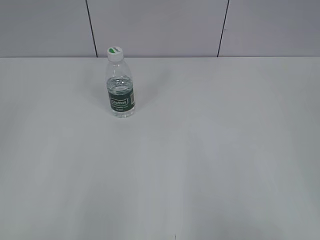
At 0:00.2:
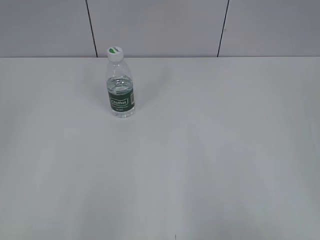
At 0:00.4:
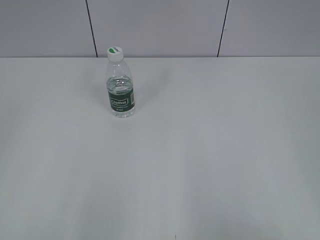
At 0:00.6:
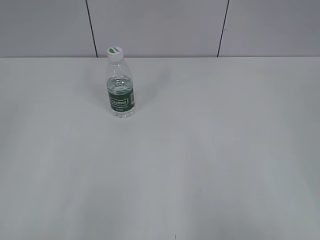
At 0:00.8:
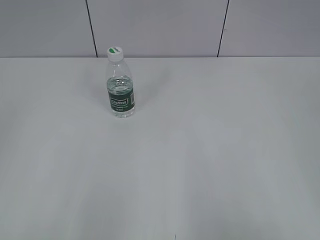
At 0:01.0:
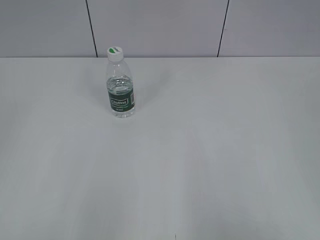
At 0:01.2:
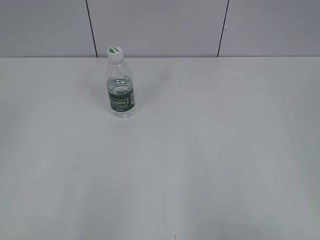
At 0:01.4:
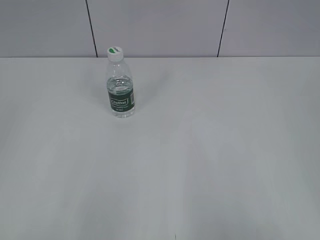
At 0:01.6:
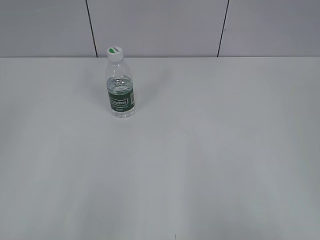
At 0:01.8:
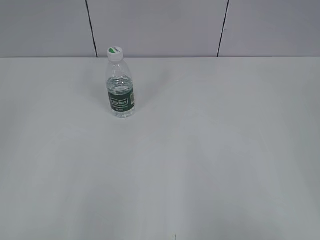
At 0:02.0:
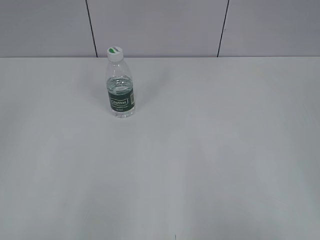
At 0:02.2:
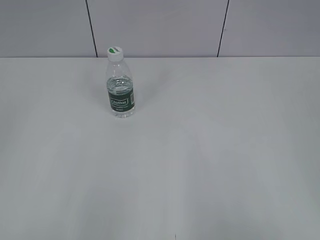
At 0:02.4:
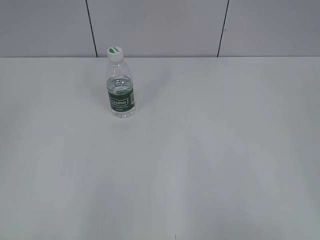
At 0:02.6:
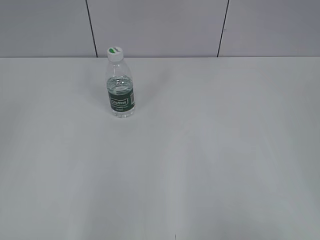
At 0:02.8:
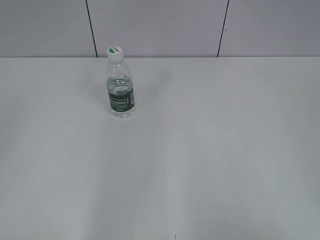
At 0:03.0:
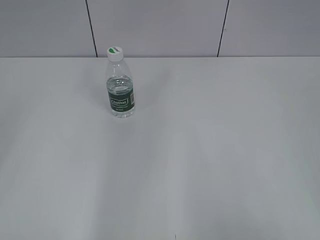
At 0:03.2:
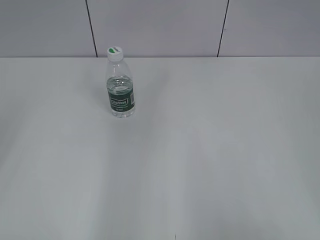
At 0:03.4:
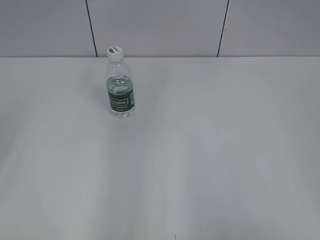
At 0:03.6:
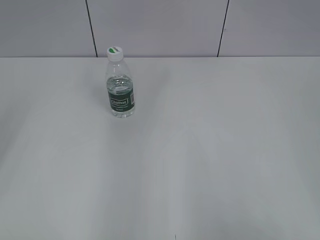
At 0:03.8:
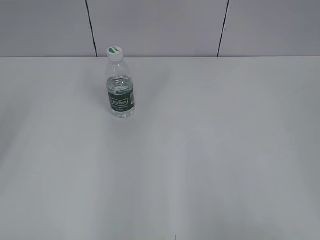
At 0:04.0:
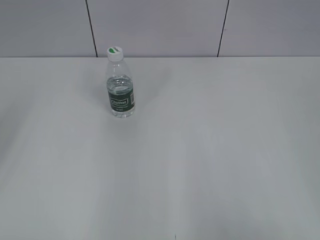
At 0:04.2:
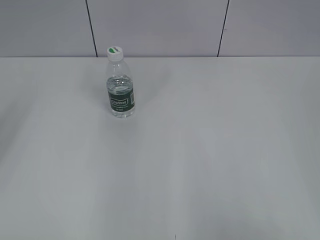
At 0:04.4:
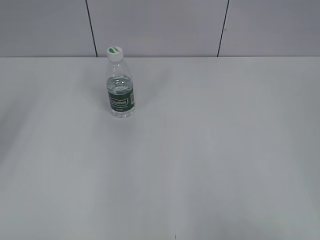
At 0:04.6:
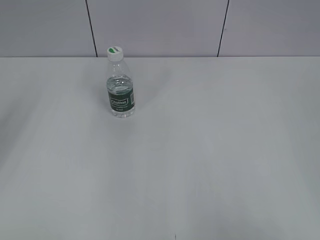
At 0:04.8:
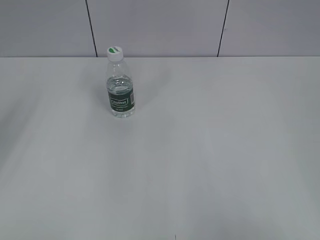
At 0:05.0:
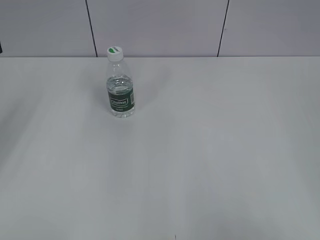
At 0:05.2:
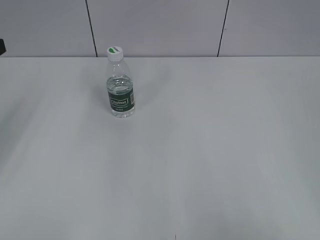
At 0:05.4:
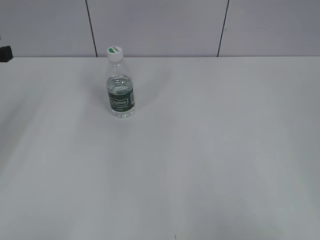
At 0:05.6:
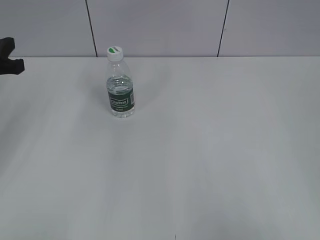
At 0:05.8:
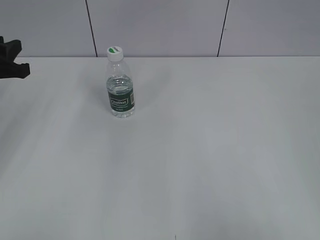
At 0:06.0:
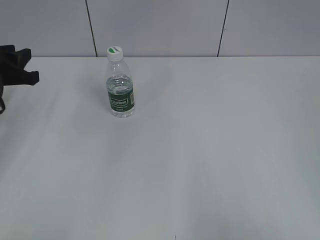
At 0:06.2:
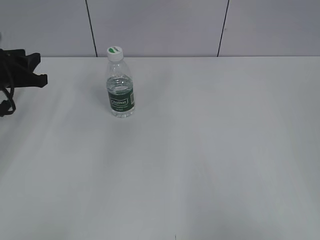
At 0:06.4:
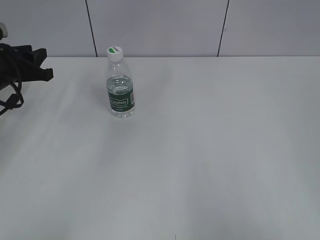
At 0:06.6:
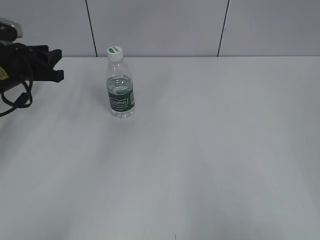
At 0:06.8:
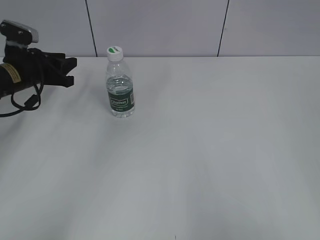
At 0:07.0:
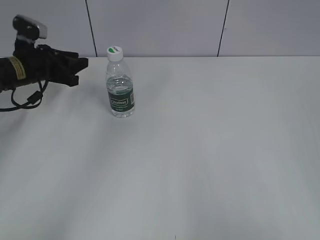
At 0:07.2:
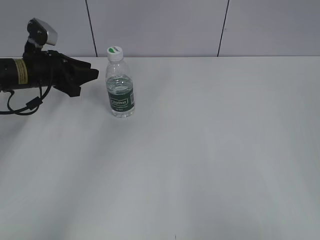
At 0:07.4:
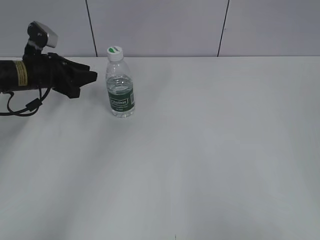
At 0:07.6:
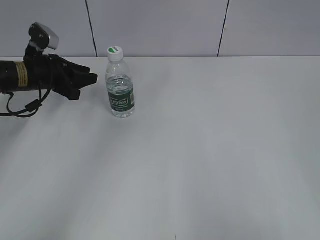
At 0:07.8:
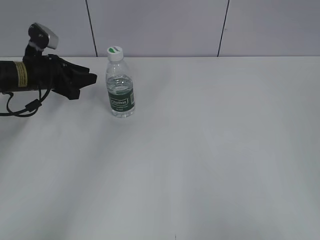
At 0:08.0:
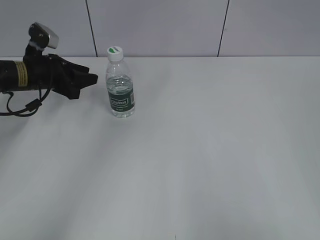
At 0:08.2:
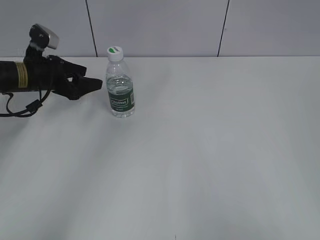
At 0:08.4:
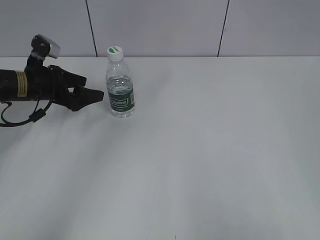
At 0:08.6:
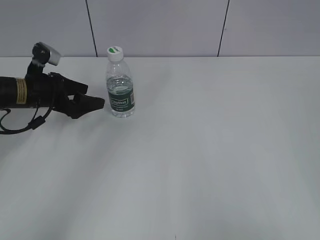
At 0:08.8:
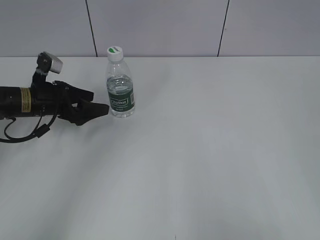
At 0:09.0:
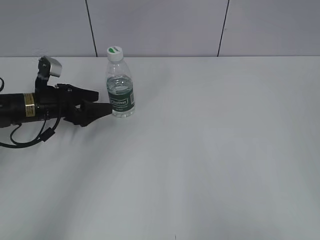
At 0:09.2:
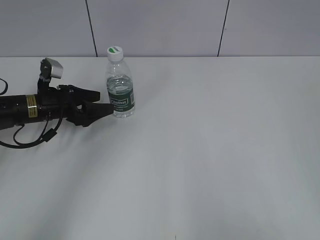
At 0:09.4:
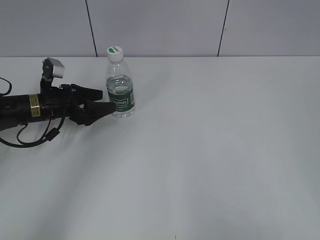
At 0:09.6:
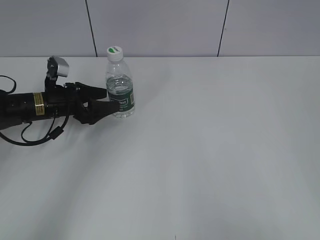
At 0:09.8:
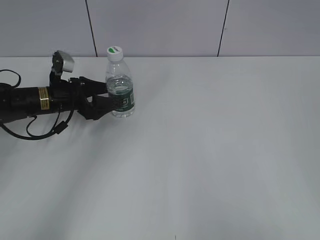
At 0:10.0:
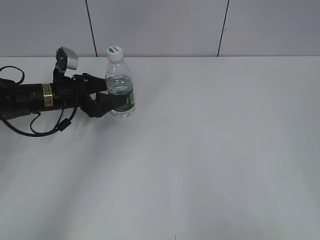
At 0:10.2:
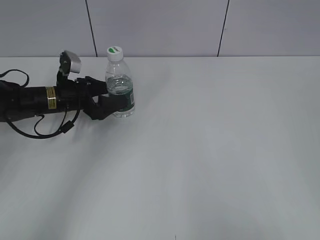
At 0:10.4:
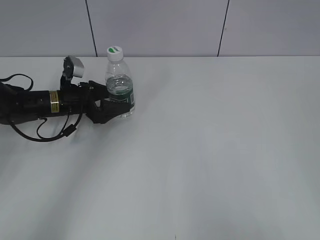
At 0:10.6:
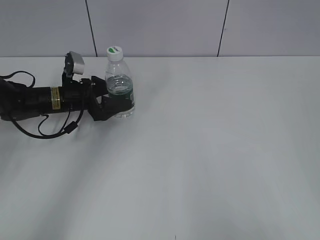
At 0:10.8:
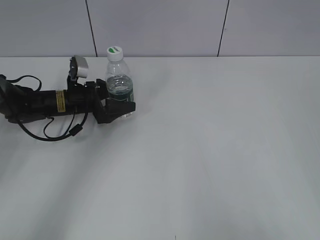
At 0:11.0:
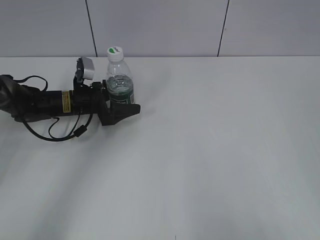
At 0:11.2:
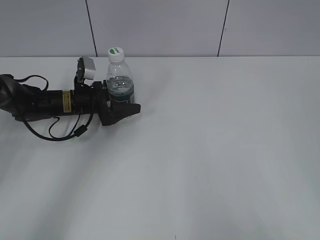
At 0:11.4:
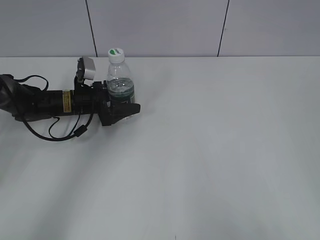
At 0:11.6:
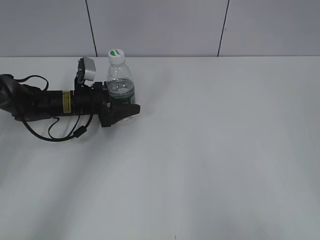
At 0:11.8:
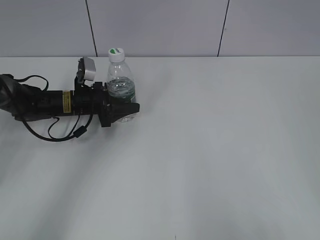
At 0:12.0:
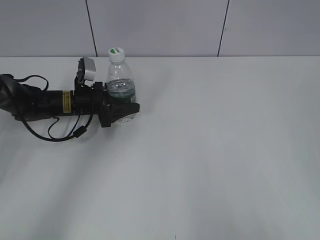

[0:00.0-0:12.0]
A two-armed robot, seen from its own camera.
0:04.4 to 0:06.0: The left gripper travels downward and forward by roughly 15 cm.
0:06.0 to 0:07.6: The left gripper moves forward and downward, roughly 10 cm.
0:07.6 to 0:09.0: The left gripper is displaced downward by about 5 cm, and opens up.
0:09.0 to 0:10.4: The left gripper moves some 5 cm.
0:10.4 to 0:12.0: The left gripper closes its fingers.

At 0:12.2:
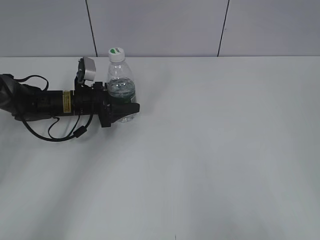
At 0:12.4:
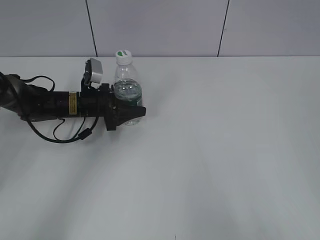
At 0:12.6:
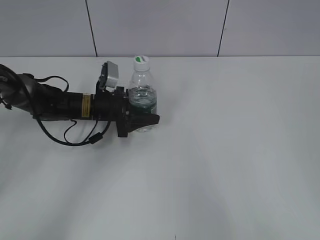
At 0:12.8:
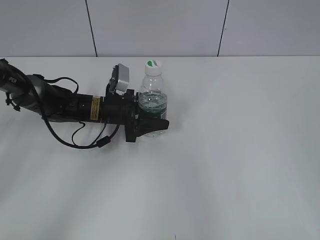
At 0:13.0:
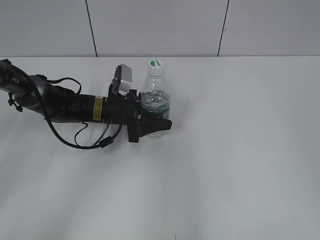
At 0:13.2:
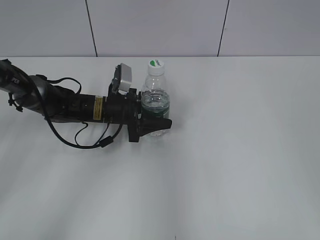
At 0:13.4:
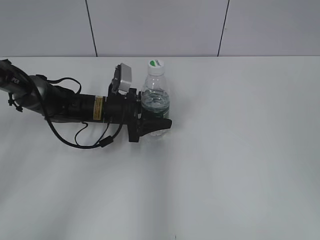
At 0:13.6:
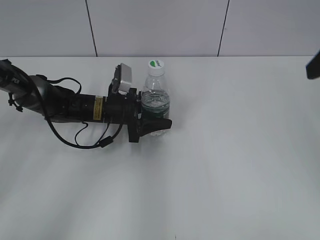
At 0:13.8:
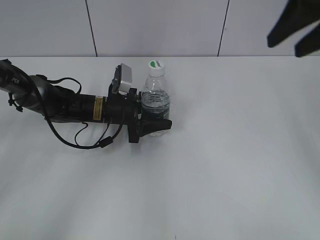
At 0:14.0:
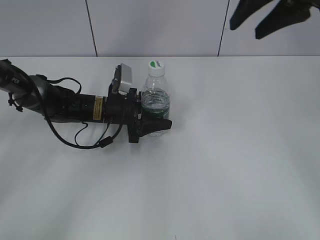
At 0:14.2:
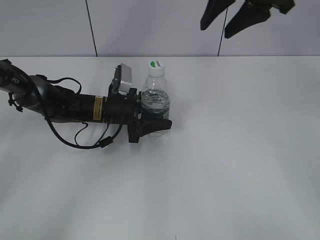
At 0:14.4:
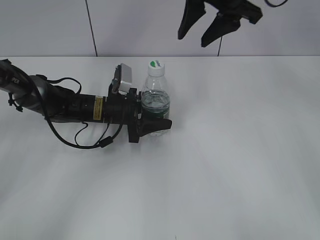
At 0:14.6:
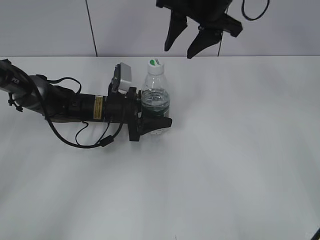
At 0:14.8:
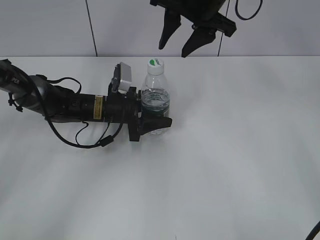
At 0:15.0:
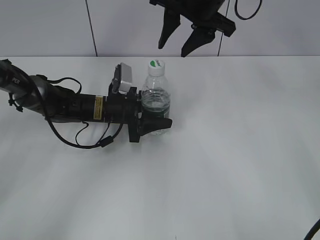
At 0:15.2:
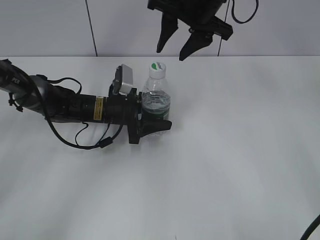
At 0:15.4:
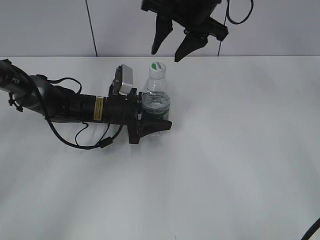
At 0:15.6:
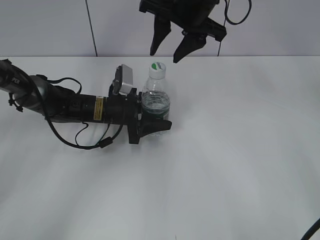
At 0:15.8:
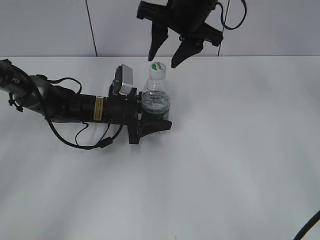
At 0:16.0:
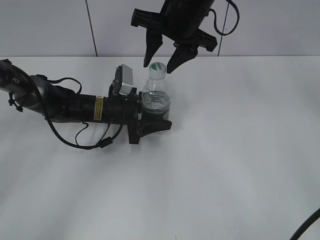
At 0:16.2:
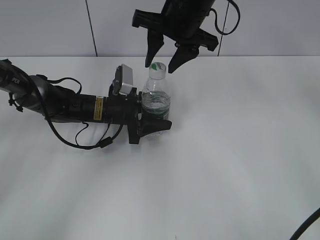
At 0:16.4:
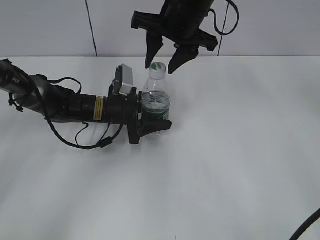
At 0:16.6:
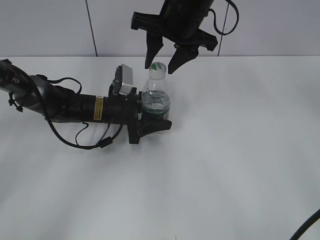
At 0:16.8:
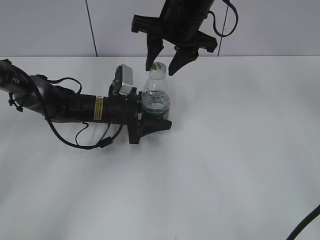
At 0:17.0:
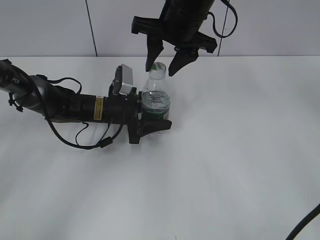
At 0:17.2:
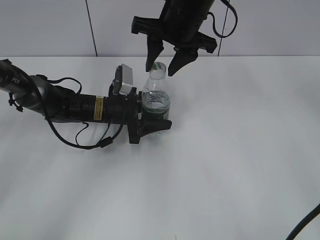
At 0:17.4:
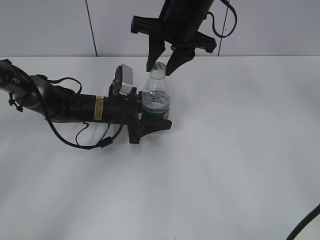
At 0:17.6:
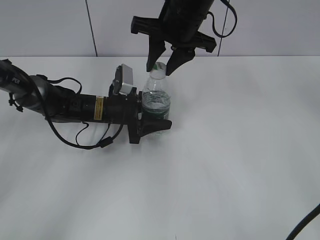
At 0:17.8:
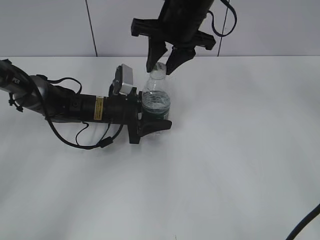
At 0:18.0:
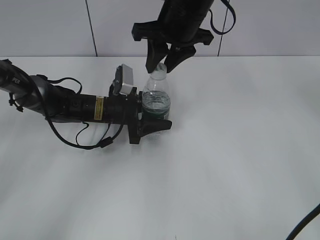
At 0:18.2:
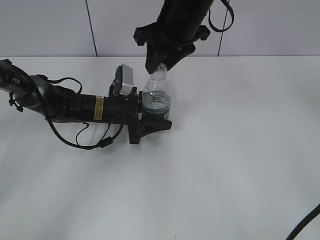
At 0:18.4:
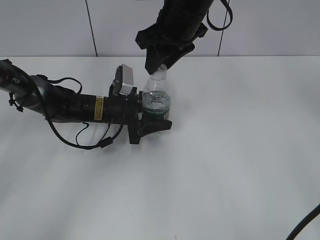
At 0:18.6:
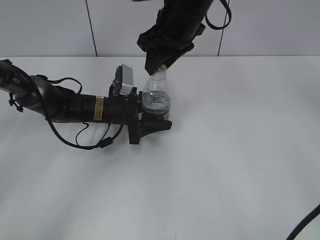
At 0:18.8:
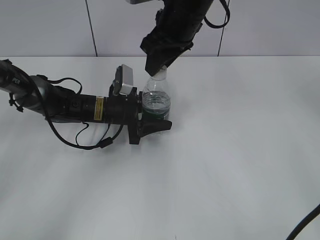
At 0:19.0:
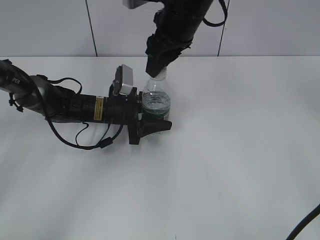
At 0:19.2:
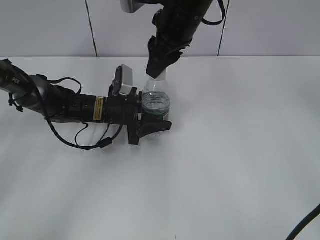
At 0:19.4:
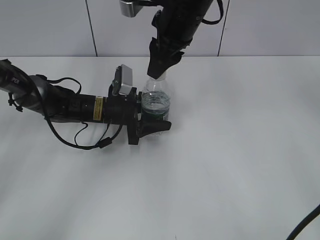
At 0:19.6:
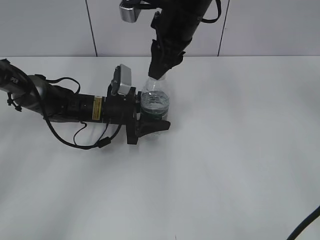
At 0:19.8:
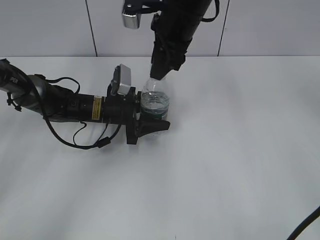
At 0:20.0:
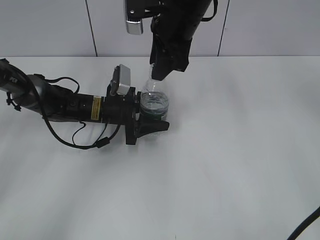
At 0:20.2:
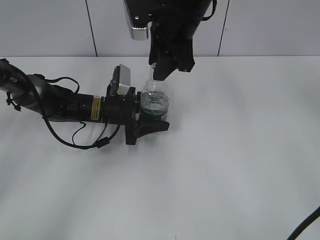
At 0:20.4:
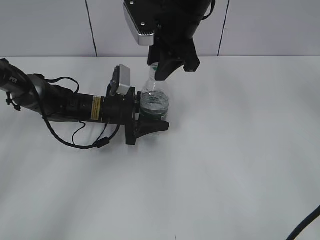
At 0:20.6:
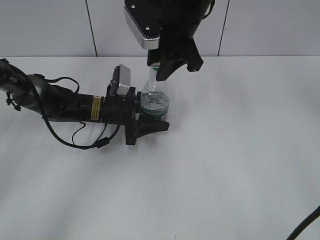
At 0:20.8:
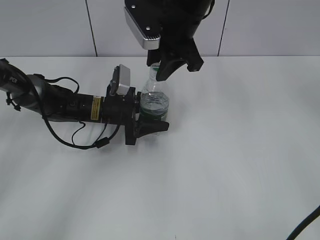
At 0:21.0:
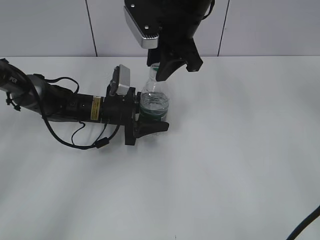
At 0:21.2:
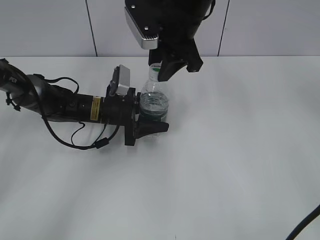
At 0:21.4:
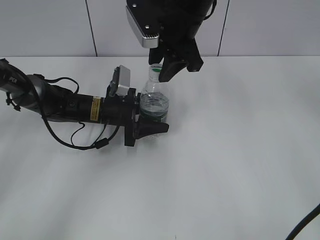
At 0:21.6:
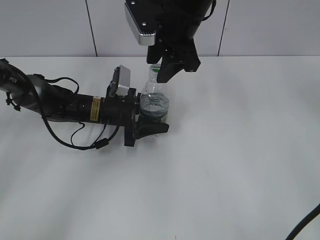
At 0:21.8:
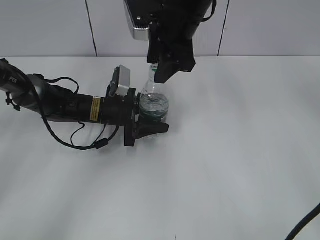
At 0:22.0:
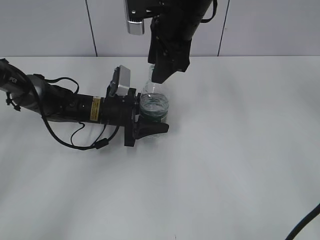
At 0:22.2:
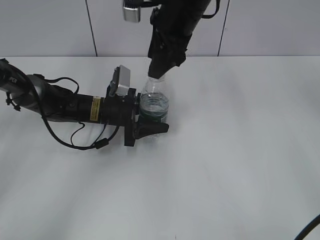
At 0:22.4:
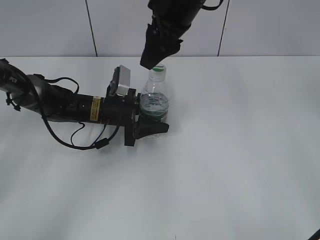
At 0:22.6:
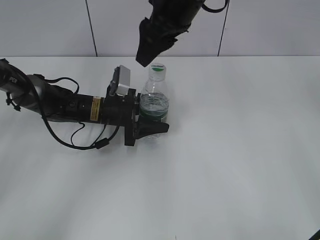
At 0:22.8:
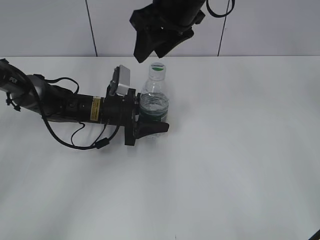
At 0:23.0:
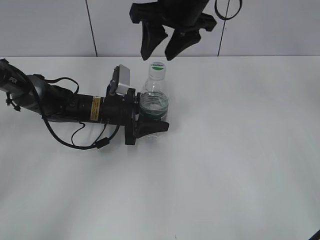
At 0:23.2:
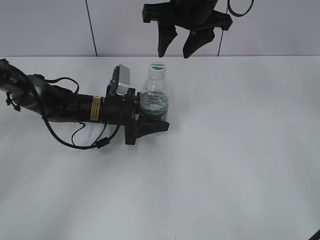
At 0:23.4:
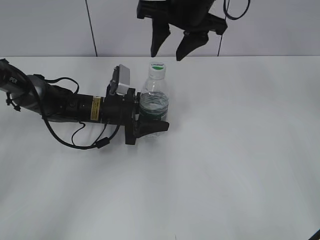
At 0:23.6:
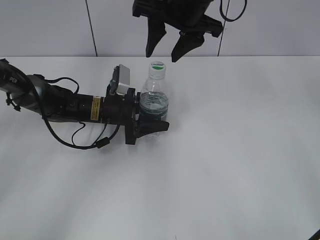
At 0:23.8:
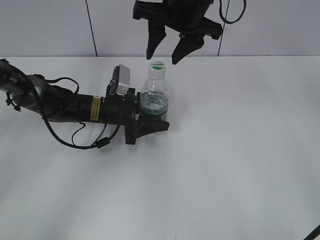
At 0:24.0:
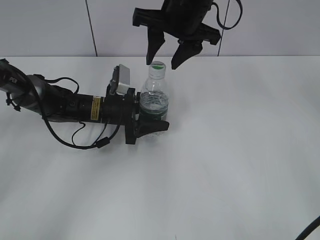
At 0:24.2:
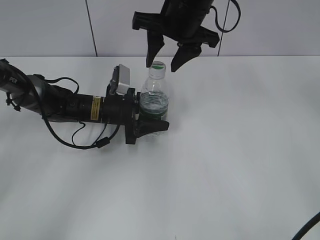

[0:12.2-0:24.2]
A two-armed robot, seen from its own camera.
0:12.2 to 0:13.8: The left gripper heads to the right, covering some 5 cm, while the right gripper travels forward by roughly 30 cm.
0:13.8 to 0:15.2: The right gripper is displaced to the left, forward and downward by some 20 cm.
0:15.2 to 0:16.6: The grippers make only small movements.
0:16.6 to 0:18.2: The right gripper closes its fingers.
0:21.2 to 0:22.6: The right gripper opens up.
